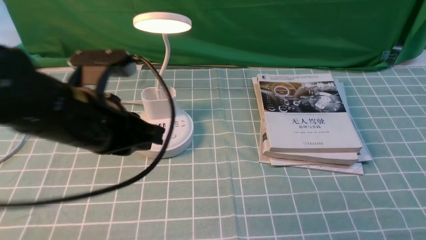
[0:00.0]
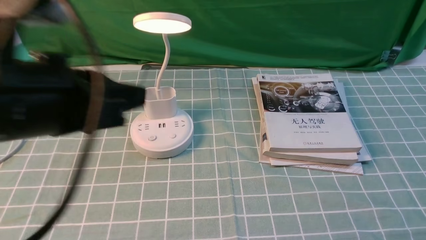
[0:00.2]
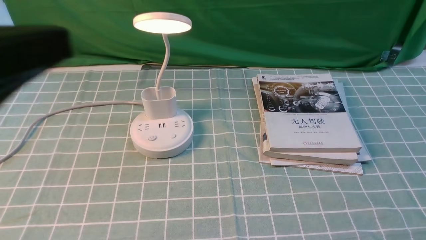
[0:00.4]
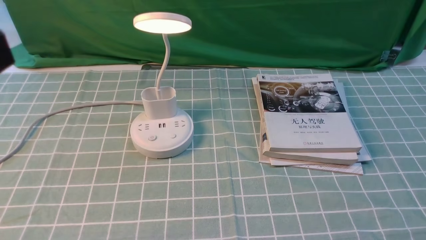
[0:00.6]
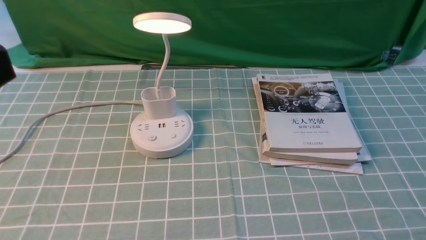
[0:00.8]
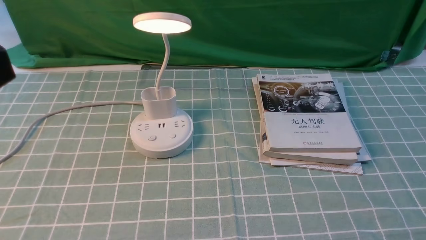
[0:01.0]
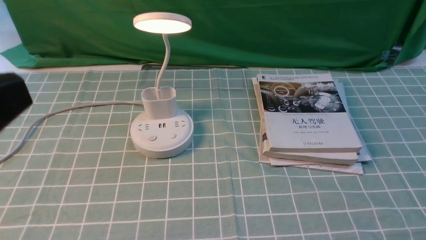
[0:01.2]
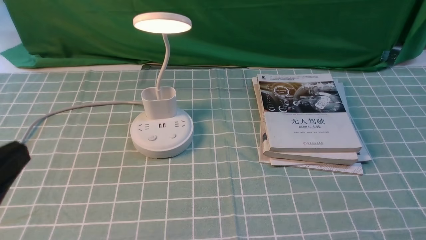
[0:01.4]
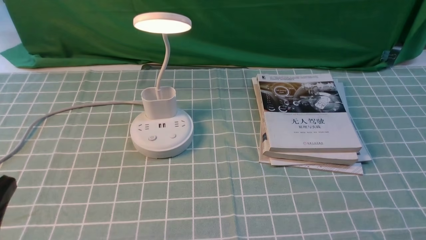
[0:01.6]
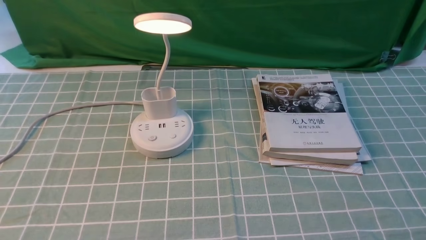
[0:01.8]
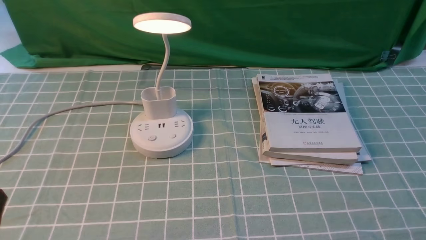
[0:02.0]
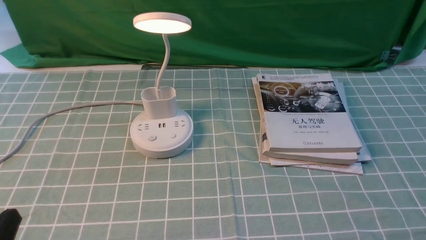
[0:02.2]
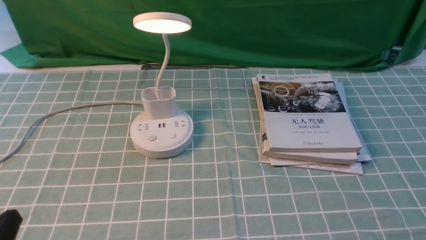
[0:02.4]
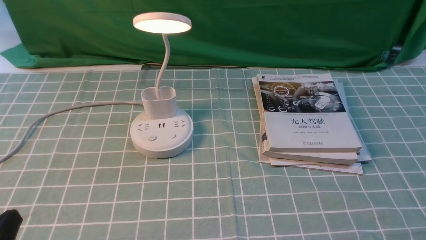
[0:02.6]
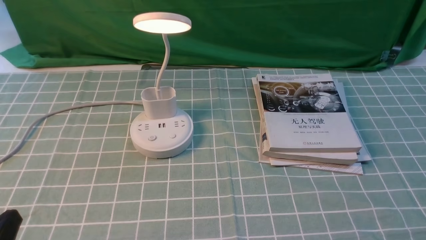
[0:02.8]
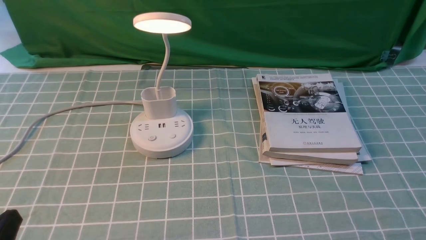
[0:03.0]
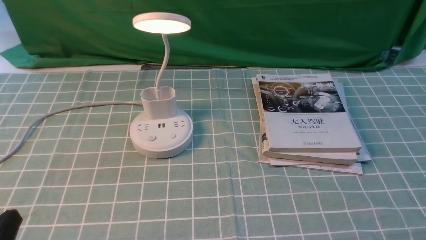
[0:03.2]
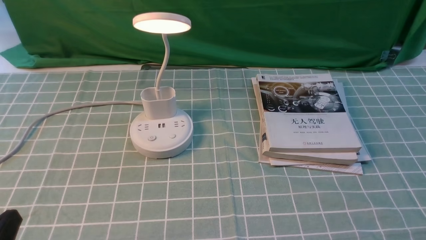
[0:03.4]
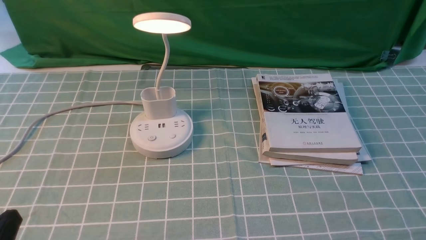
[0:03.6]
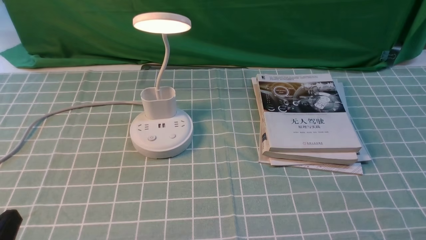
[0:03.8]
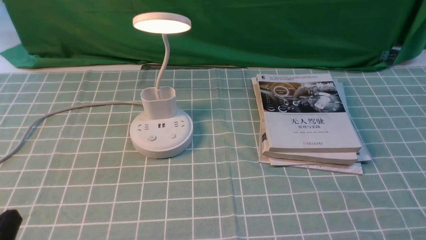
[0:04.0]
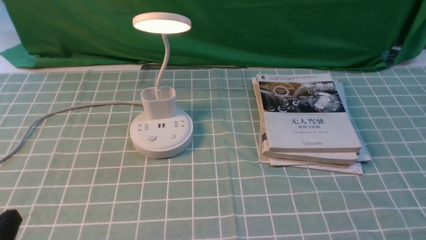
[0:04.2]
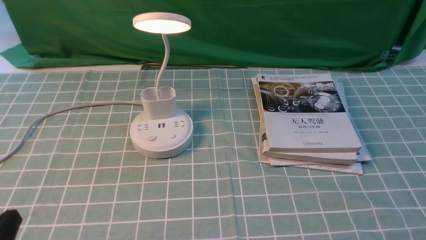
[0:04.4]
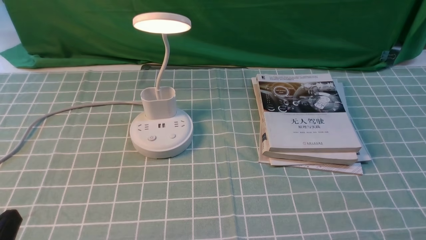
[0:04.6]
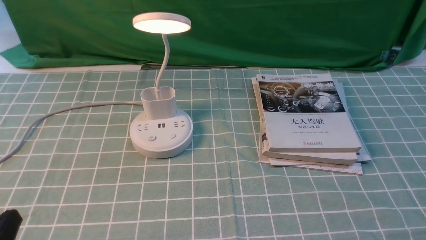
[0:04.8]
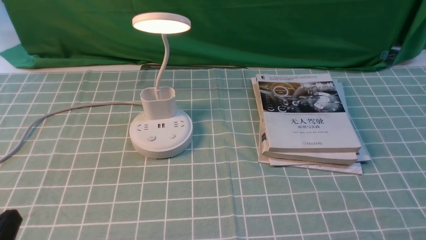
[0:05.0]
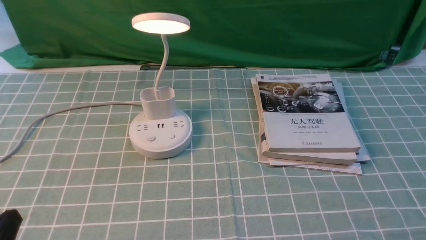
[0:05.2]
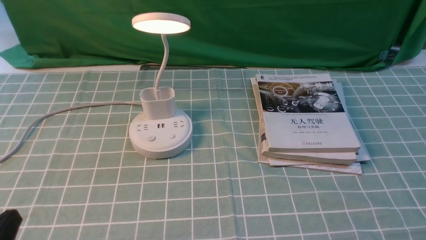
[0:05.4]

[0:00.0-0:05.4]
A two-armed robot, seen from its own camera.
0:00.0 to 0:01.4: The left gripper travels backward and to the left by about 25 cm.
0:01.4 to 0:02.8: The left gripper is displaced downward by about 15 cm.
0:02.8 to 0:04.0: The two grippers keep their place.

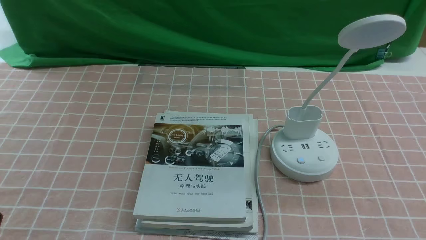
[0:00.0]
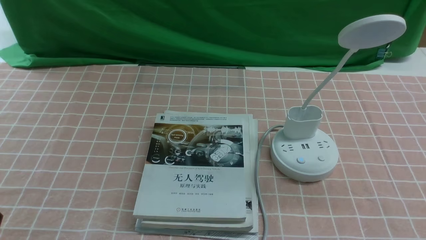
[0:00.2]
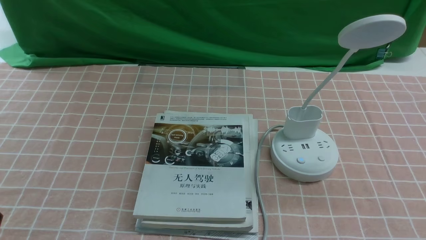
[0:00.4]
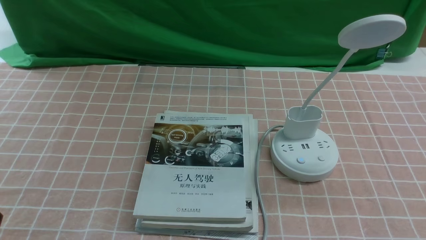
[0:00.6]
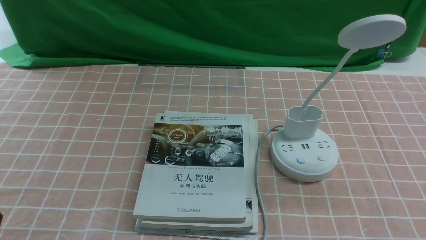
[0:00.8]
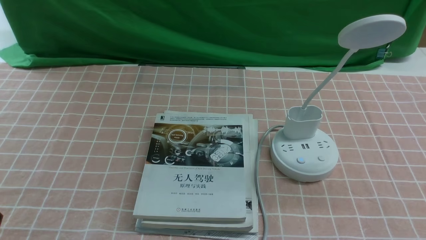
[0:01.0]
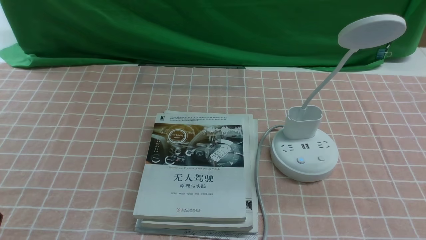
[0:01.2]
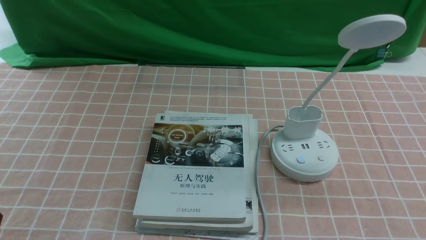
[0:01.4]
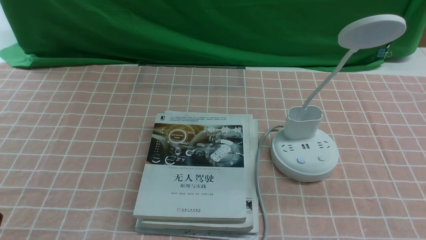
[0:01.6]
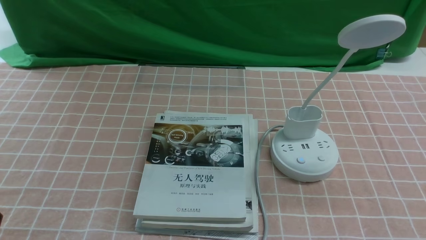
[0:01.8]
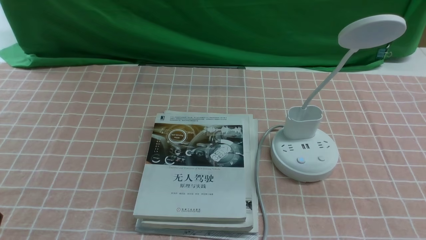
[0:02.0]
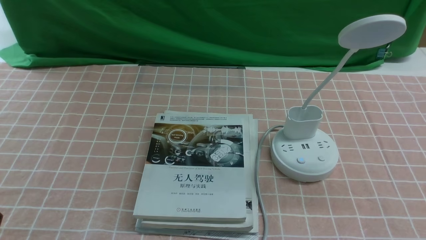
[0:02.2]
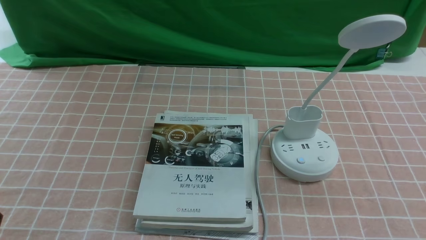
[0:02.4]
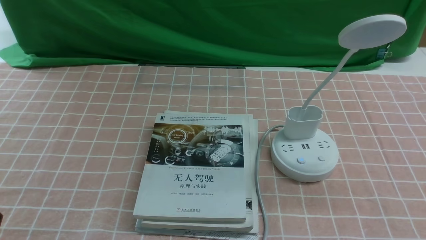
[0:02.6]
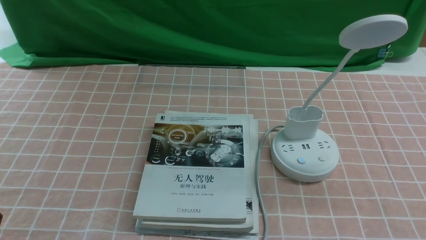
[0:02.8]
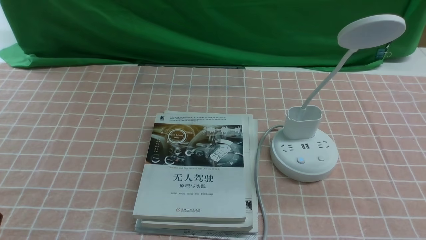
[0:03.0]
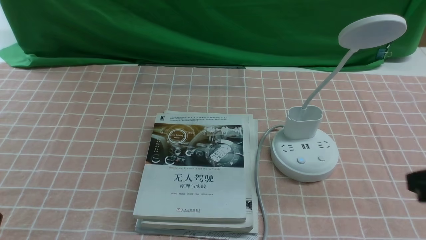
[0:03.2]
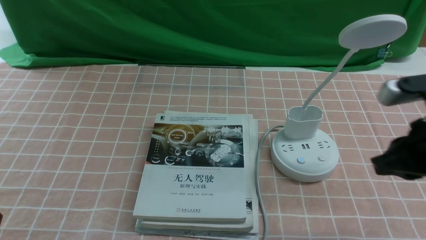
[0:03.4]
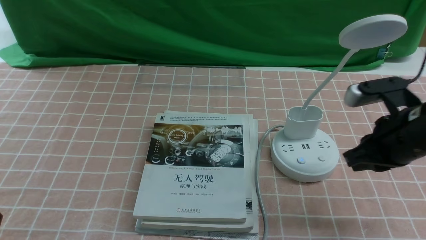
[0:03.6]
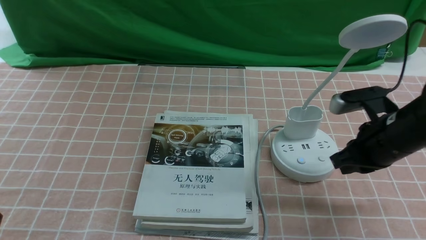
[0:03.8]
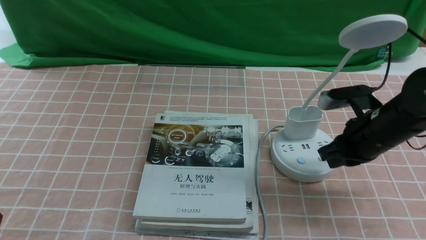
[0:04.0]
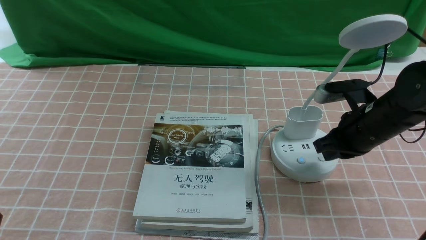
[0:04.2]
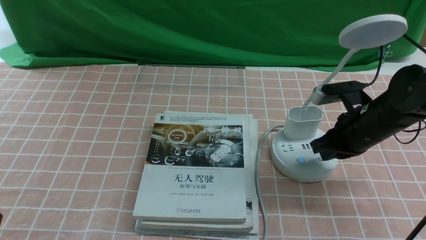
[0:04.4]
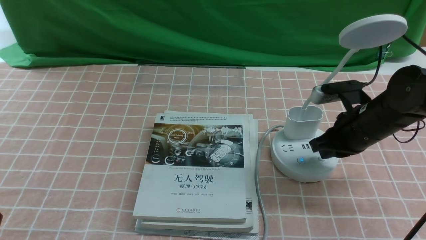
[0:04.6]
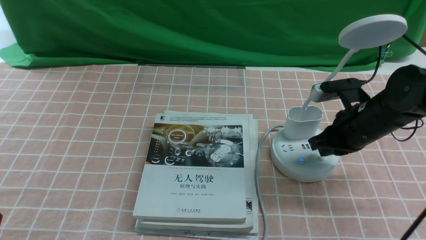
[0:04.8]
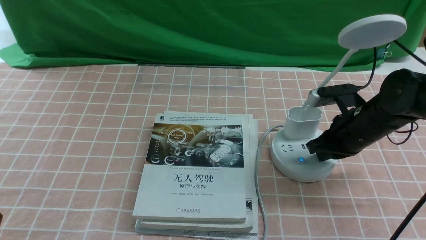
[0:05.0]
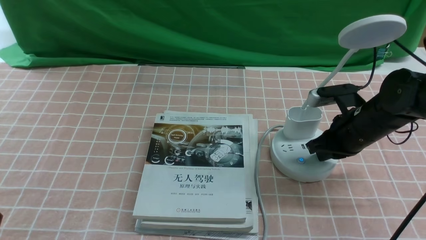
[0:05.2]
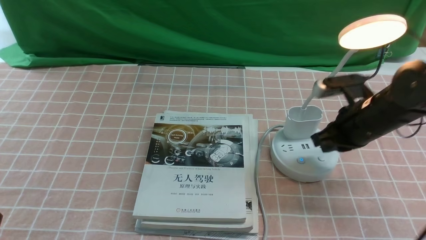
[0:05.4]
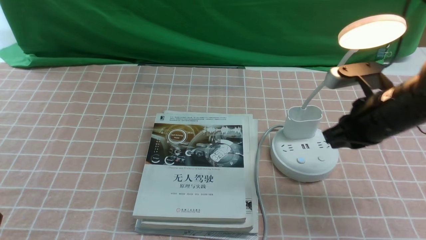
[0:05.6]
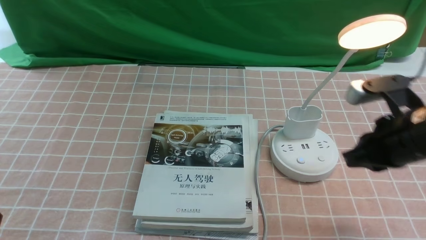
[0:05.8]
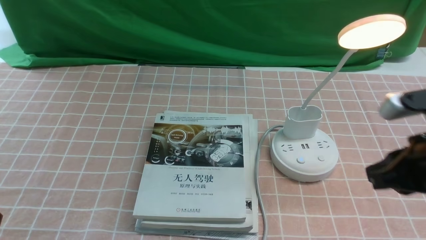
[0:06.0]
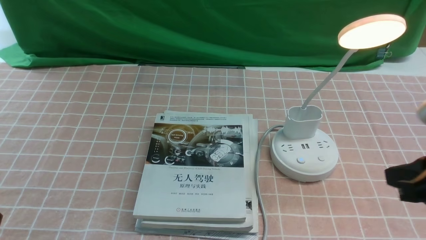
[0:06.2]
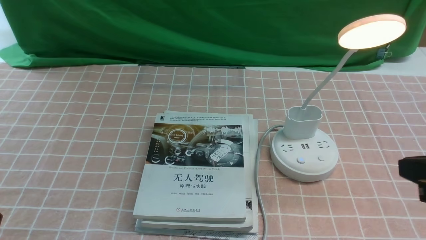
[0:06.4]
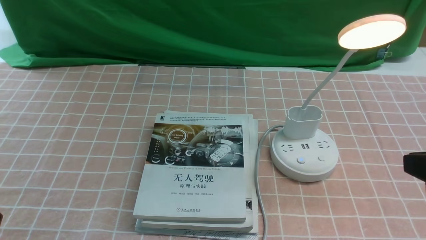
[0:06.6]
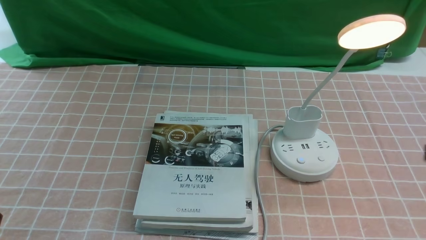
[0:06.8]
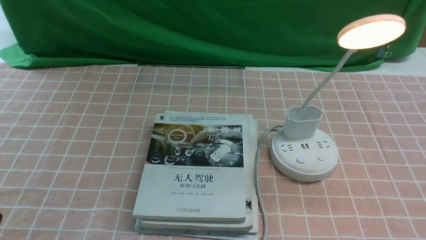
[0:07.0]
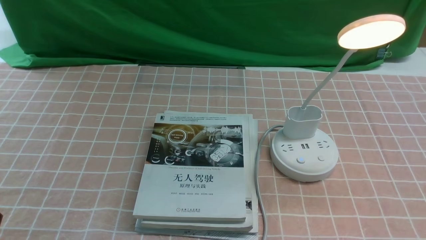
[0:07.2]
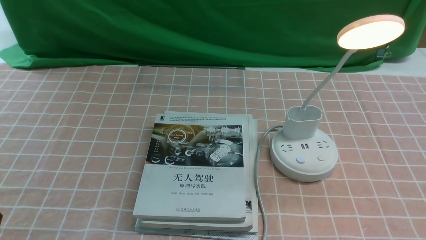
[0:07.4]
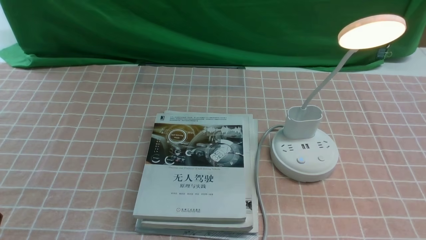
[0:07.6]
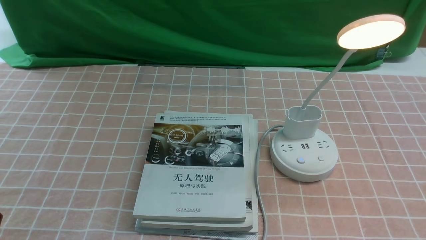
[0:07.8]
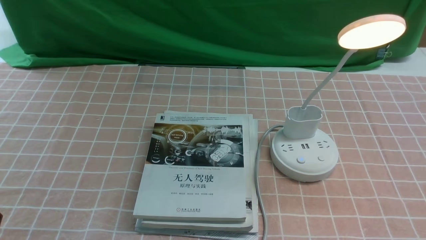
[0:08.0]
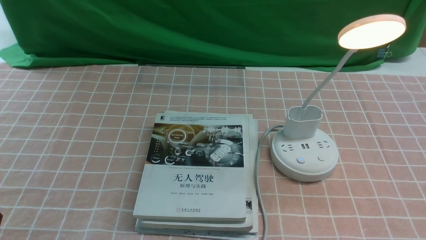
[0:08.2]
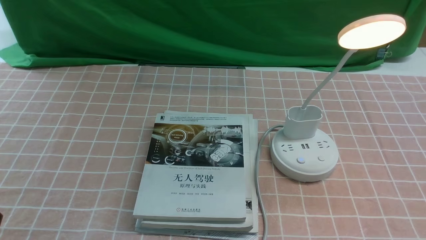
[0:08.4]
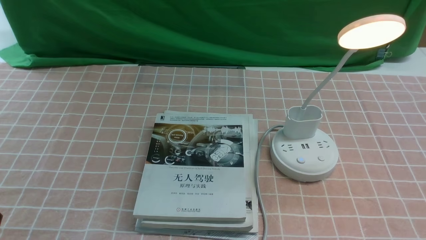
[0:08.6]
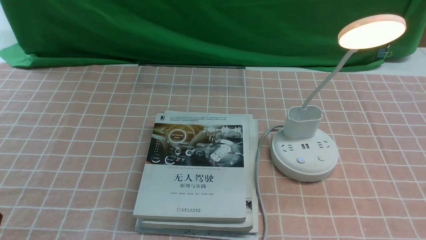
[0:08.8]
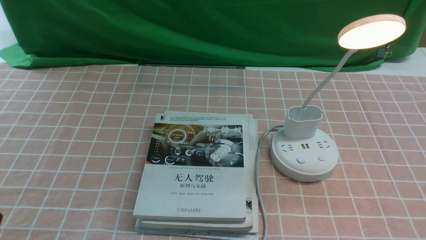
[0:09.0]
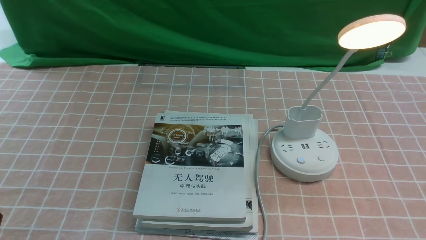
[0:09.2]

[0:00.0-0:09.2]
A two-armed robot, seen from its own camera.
Step, 0:00.0 to 0:05.4: use the right arm to press the button switch on the lamp holder.
0:00.0 to 0:01.6: Neither gripper changes place.
0:03.0 to 0:04.6: The right gripper shifts approximately 25 cm forward and downward.
0:04.6 to 0:06.2: The right gripper heads backward and upward, covering about 20 cm.
0:06.2 to 0:07.6: The right gripper goes about 15 cm downward and backward.
